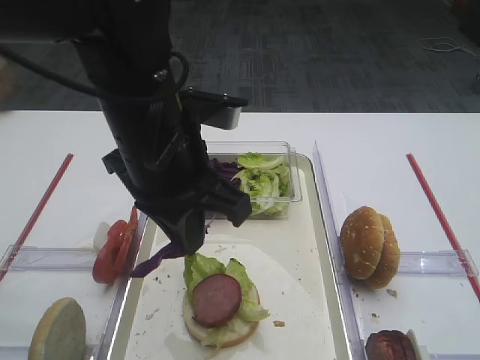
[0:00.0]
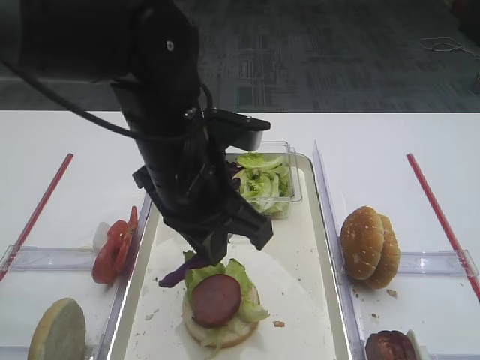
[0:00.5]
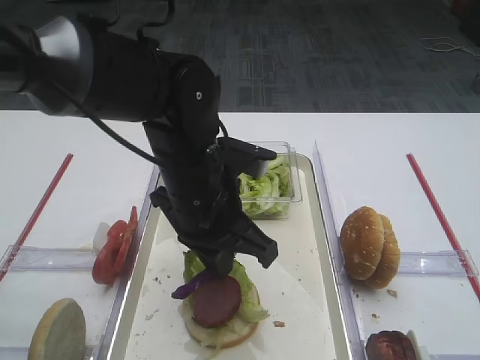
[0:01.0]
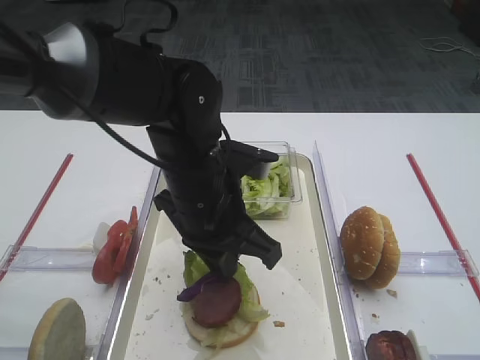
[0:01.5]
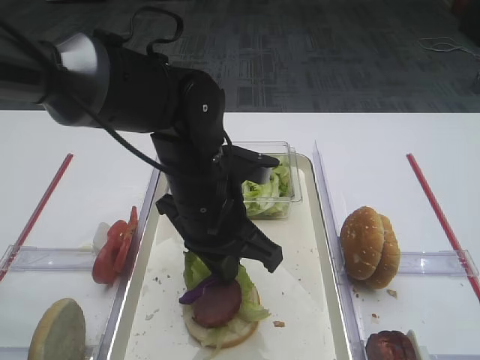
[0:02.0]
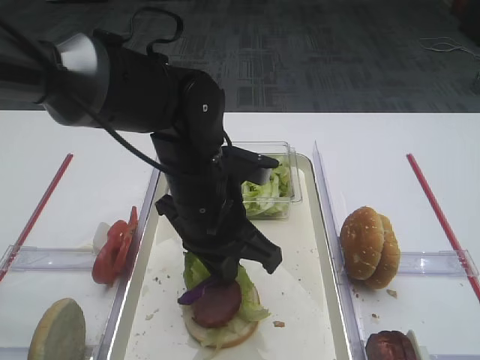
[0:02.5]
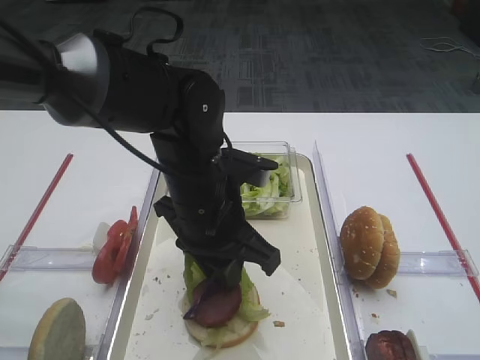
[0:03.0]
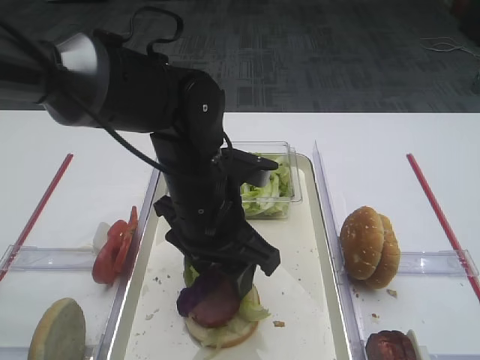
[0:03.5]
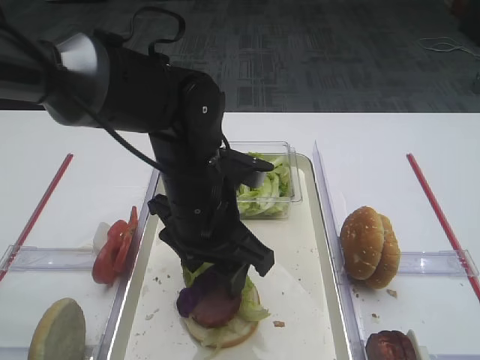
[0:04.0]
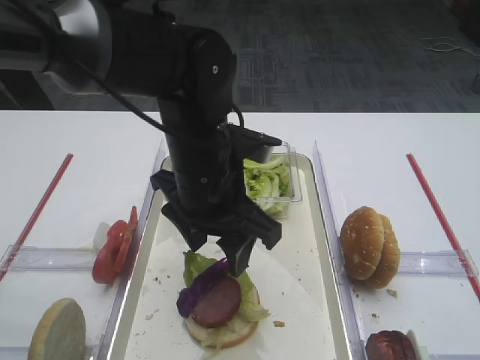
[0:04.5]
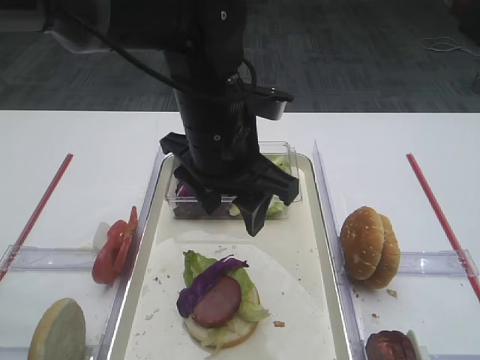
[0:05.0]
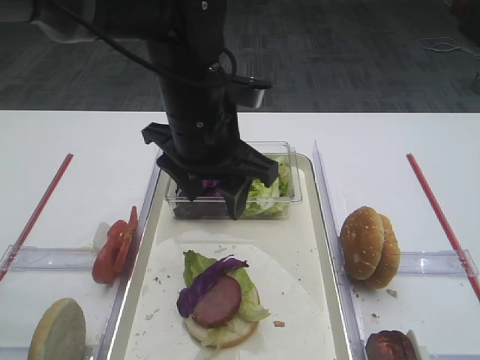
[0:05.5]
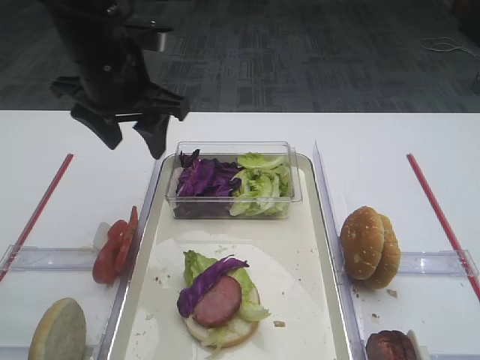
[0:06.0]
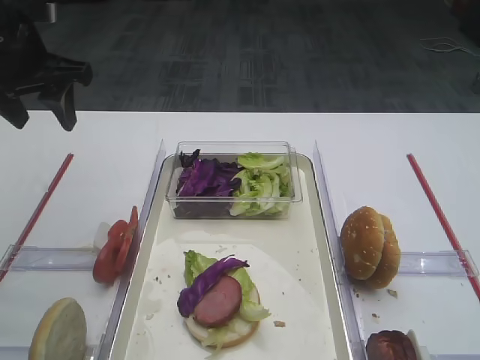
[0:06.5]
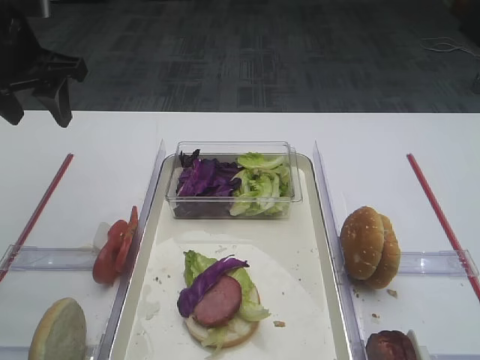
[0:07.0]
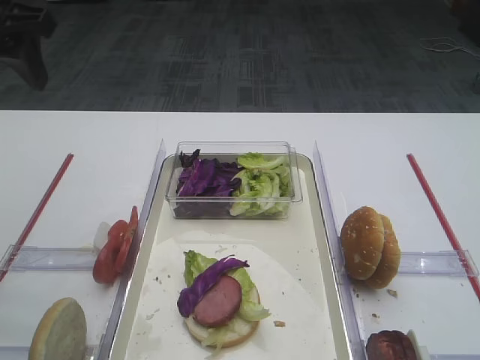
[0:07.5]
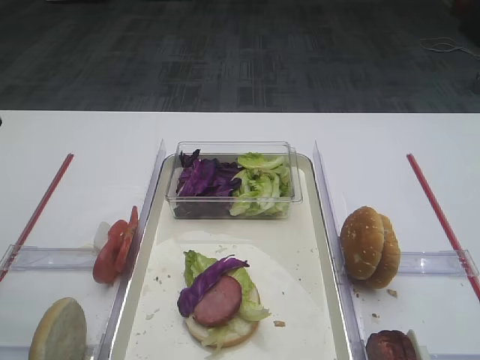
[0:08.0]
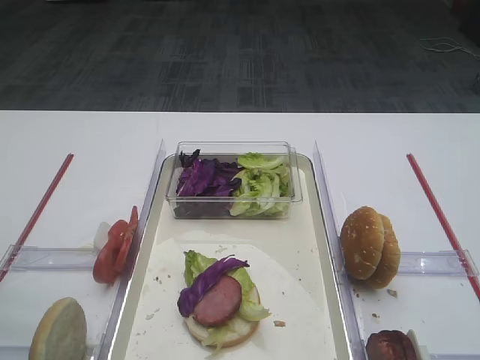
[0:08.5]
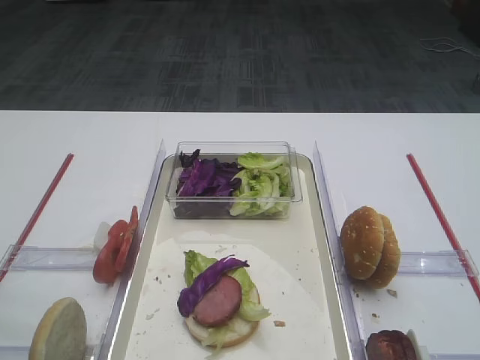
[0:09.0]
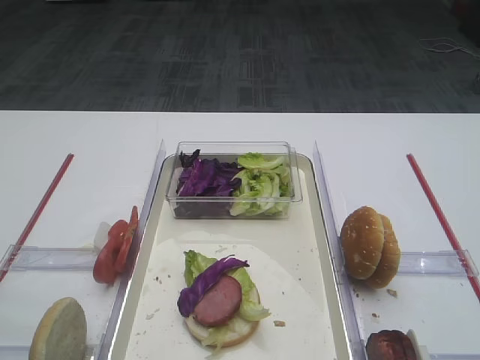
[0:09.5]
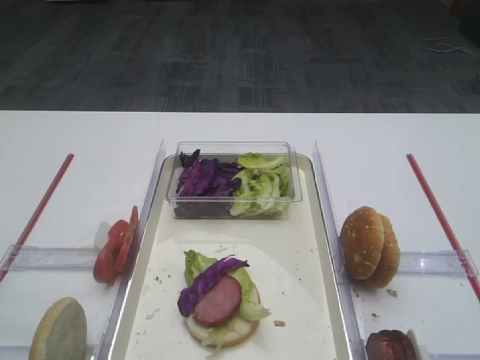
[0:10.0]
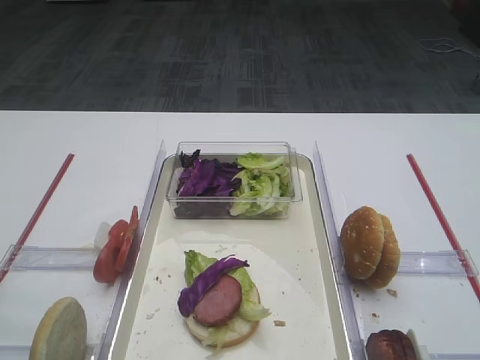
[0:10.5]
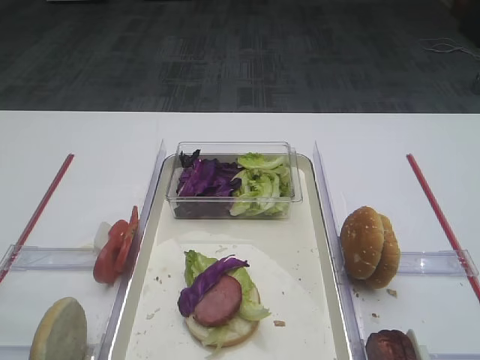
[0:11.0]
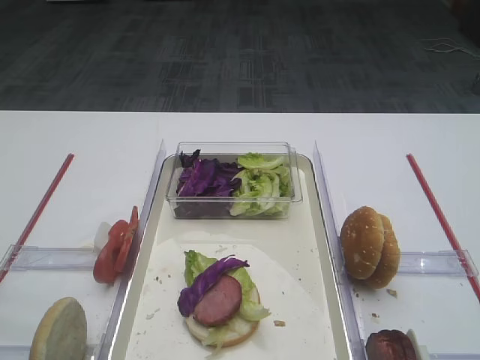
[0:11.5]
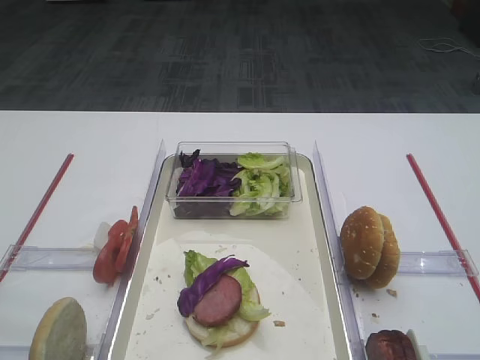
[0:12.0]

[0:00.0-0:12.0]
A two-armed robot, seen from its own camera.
Step, 0:00.0 to 0:04.0: Place the purple cabbage on the cutlet with the left gripper.
0:00.0 to 0:02.0: The left gripper moves downward, approximately 10 cm.
0:02.0 to 0:04.0: The left gripper opens up.
0:04.0 to 0:06.0: The left gripper travels upward, to the left and forward by roughly 15 cm.
0:06.0 to 0:08.0: The left gripper travels to the left, backward and upward by about 20 cm.

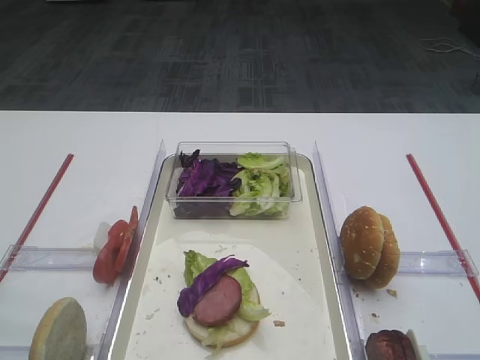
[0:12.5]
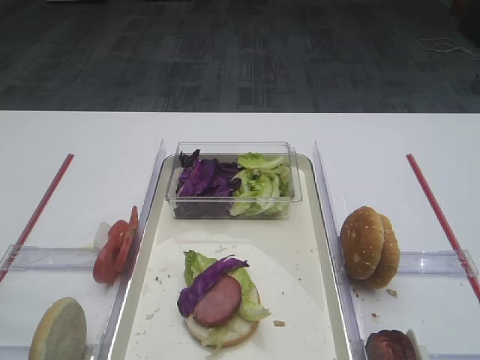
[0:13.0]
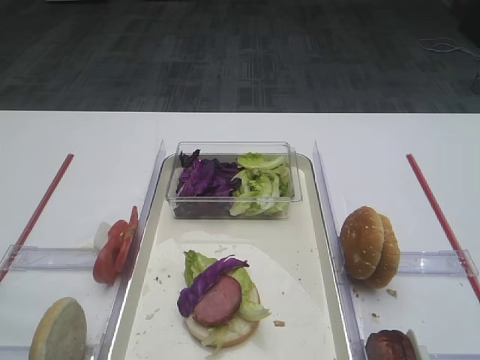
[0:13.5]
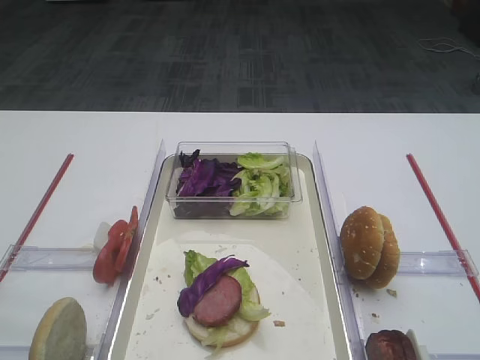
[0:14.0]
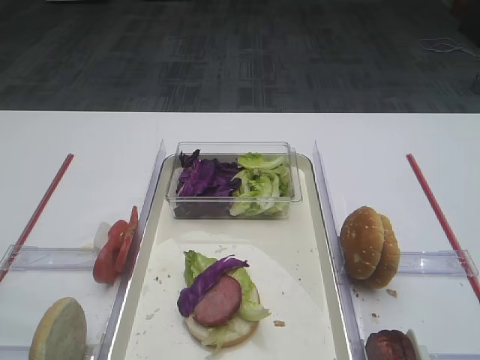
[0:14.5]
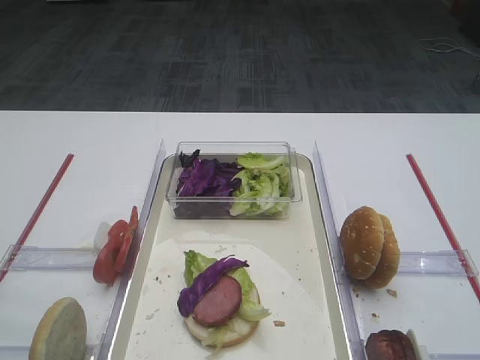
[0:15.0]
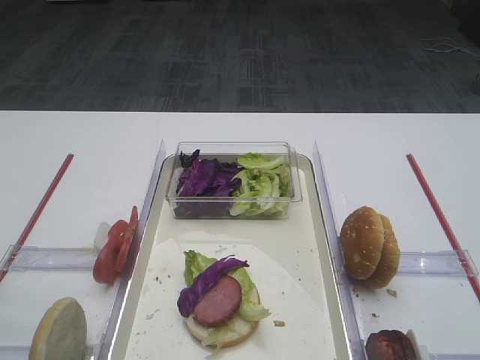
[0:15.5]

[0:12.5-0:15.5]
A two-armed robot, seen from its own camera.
0:12.5 to 0:15.5: Both grippers stay about where they are.
